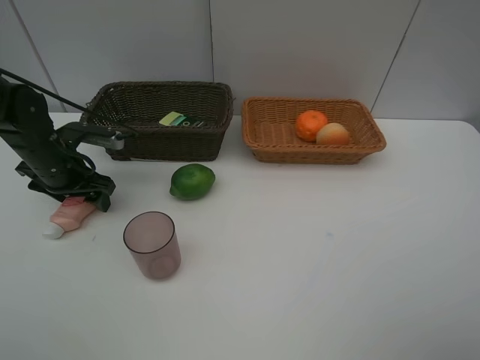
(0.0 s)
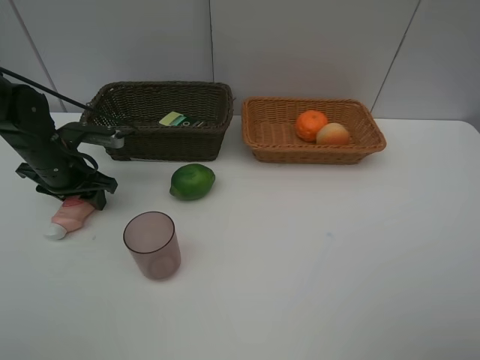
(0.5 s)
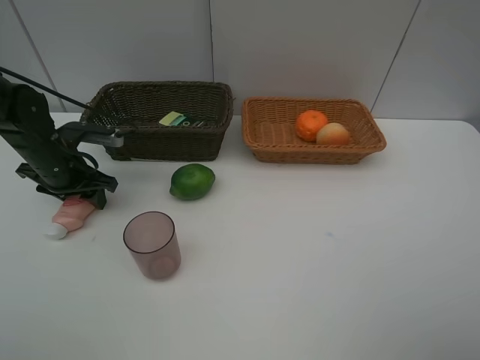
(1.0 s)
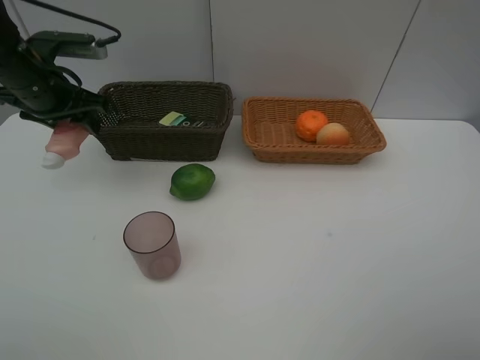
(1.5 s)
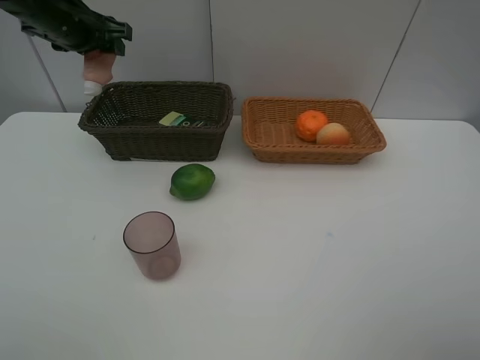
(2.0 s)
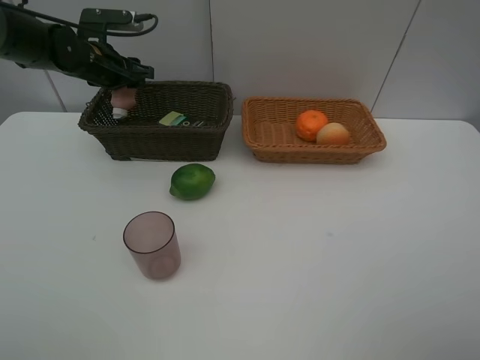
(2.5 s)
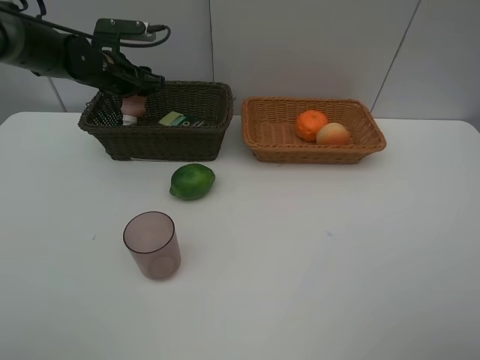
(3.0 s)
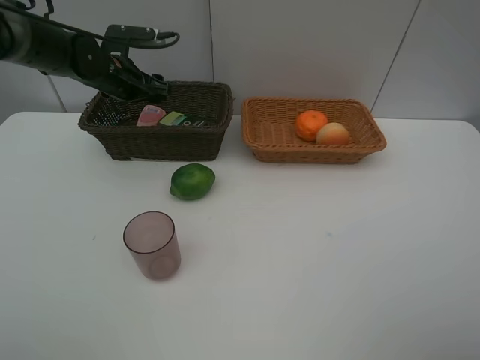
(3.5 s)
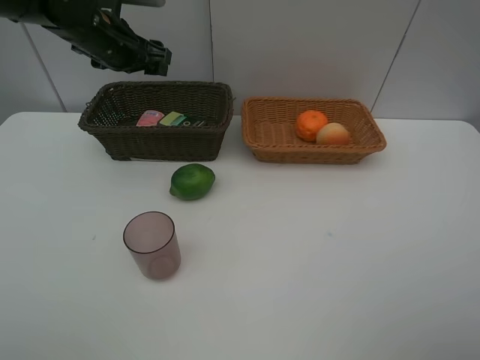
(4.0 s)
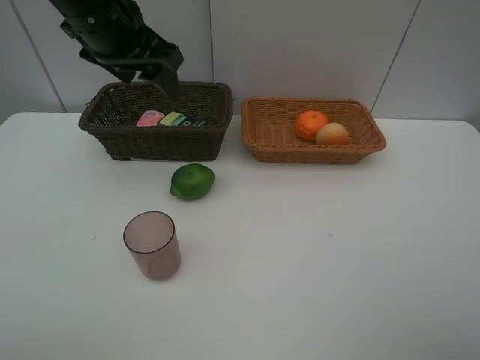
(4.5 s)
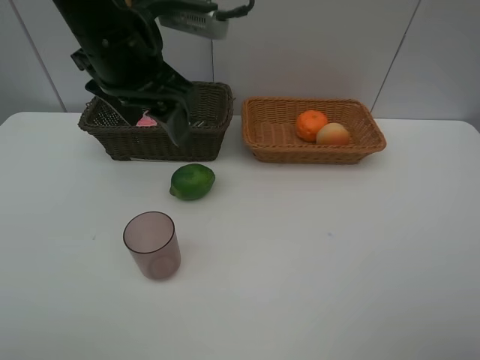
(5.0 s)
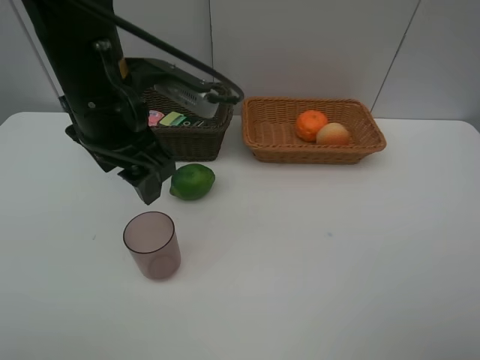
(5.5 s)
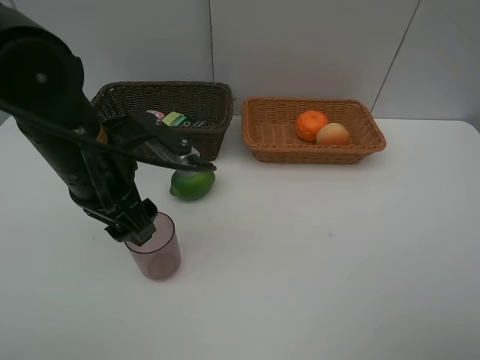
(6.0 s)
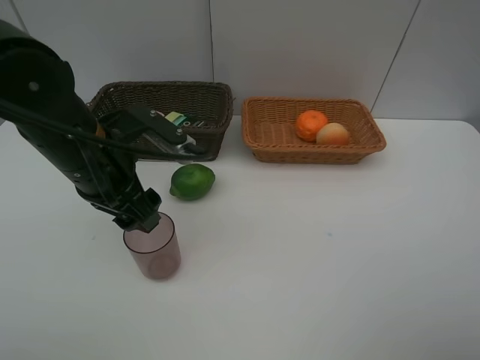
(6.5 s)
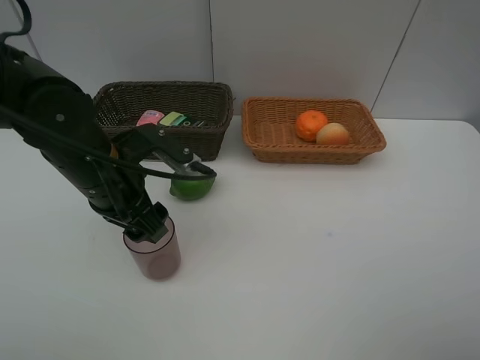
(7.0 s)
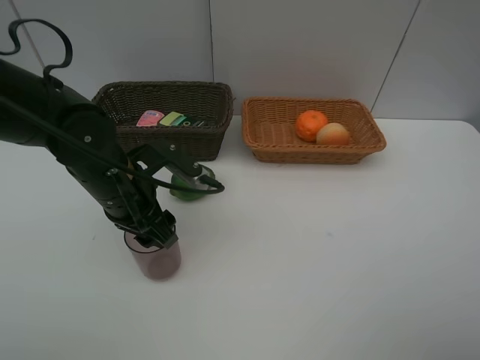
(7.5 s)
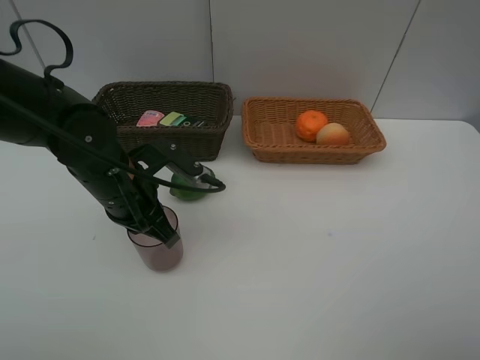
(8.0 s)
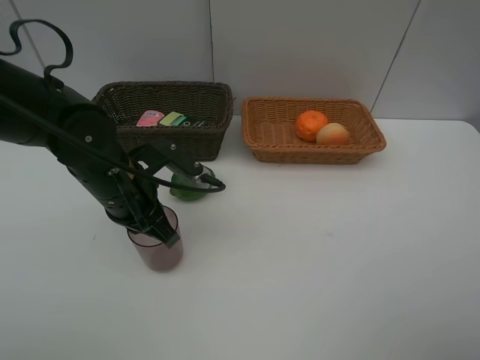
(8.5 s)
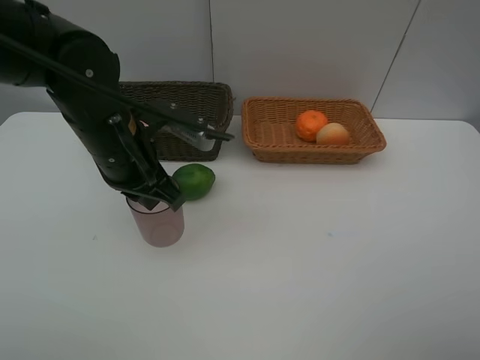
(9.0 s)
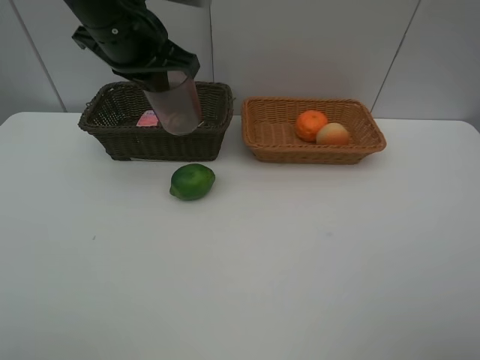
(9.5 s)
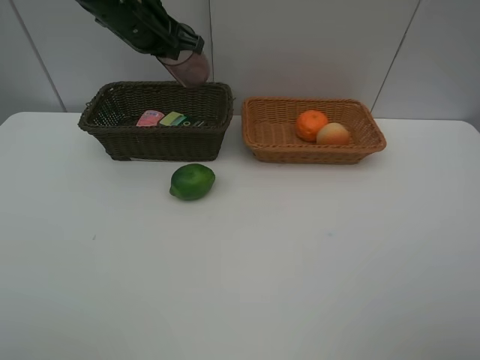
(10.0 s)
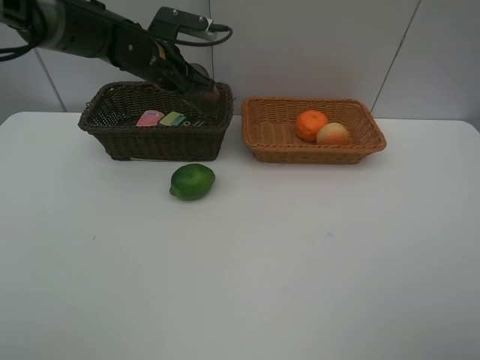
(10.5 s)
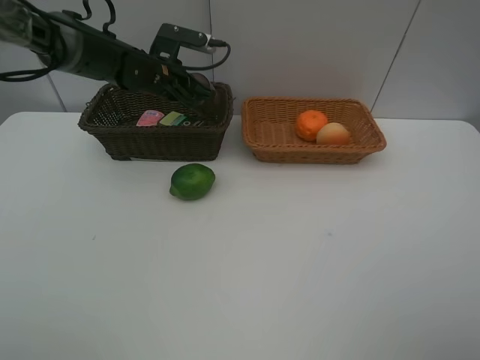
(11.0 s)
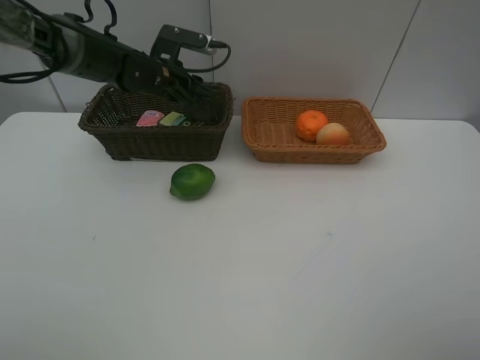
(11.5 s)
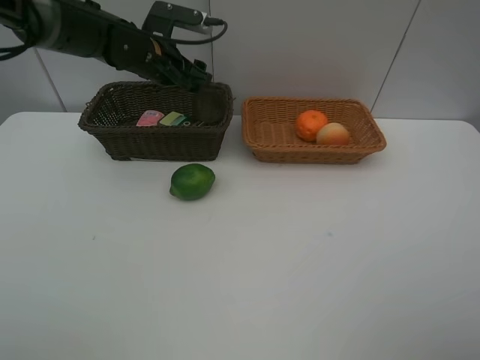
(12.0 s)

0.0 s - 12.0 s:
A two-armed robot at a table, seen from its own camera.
Task of the whole recording: place multiple objects separately in different baskets.
0.0 s - 2.0 s: The left gripper travels upward and forward by roughly 20 cm.
2.0 s - 4.0 s: The left gripper moves to the right, approximately 5 cm, and moves approximately 10 cm downward and comes back.
4.0 s - 6.0 s: The left gripper travels backward by roughly 20 cm.
6.0 s - 8.0 s: The left gripper heads downward, covering some 5 cm, and closes its fingers.
8.0 s - 10.0 s: The left gripper is displaced forward and upward by roughly 20 cm.
10.0 s - 12.0 s: The left gripper travels downward by roughly 5 cm, and opens up.

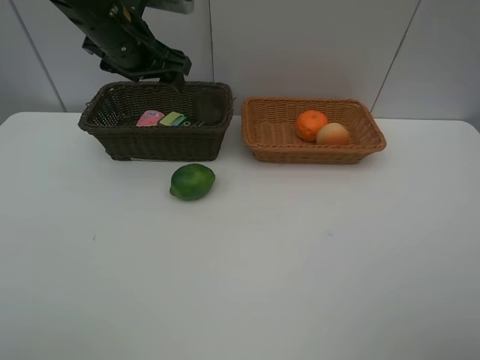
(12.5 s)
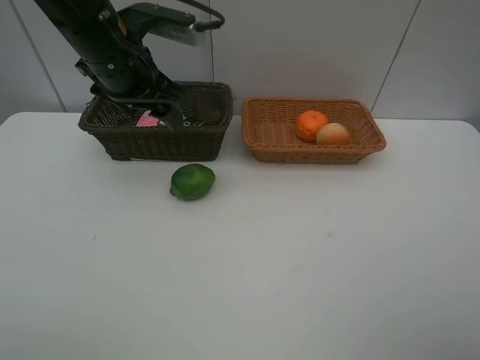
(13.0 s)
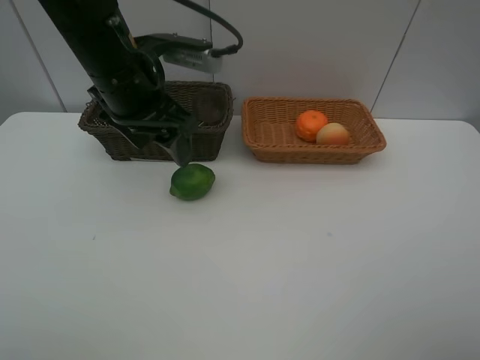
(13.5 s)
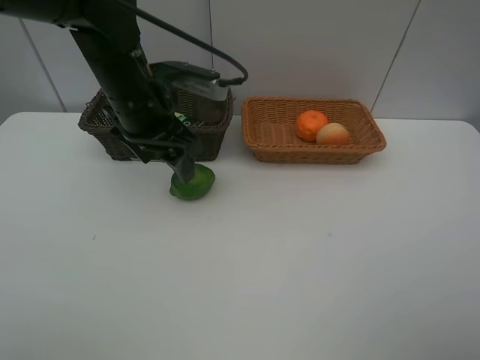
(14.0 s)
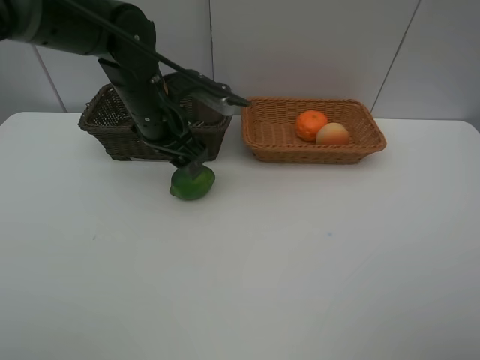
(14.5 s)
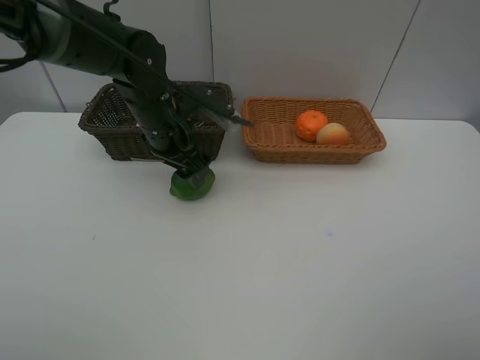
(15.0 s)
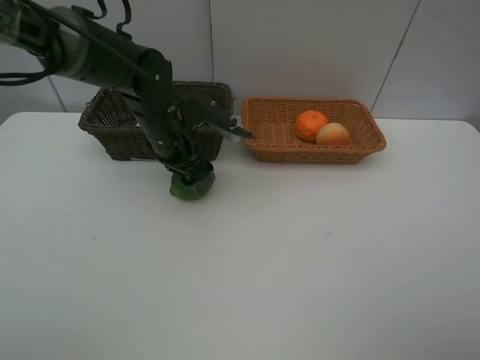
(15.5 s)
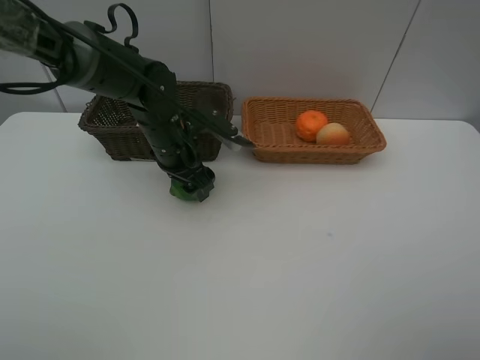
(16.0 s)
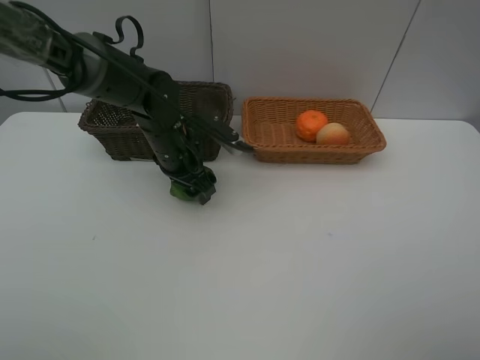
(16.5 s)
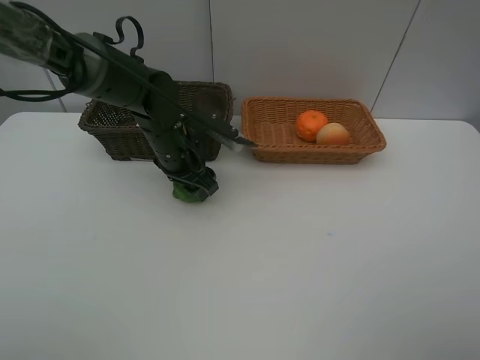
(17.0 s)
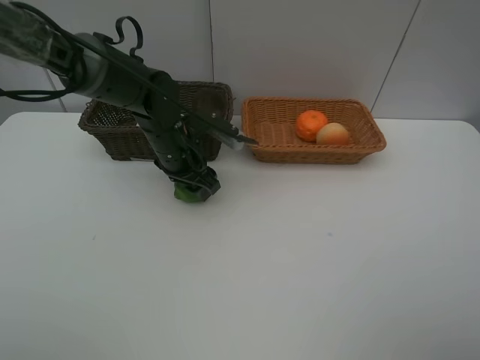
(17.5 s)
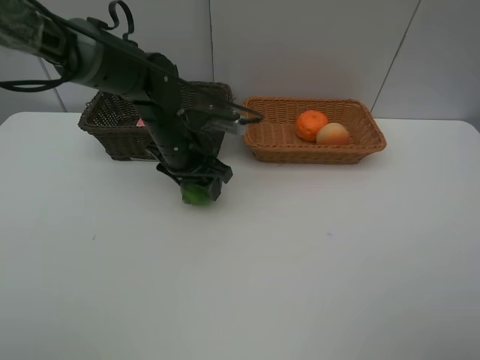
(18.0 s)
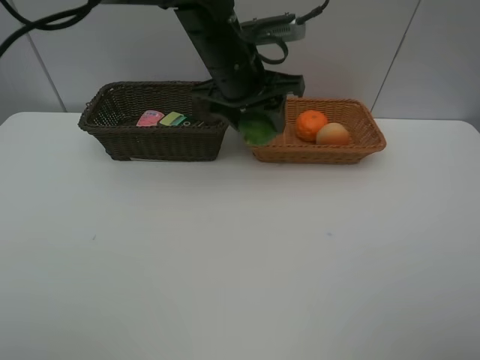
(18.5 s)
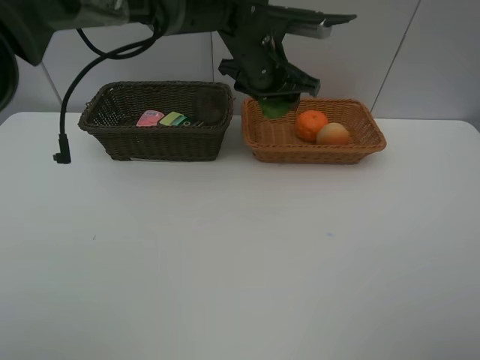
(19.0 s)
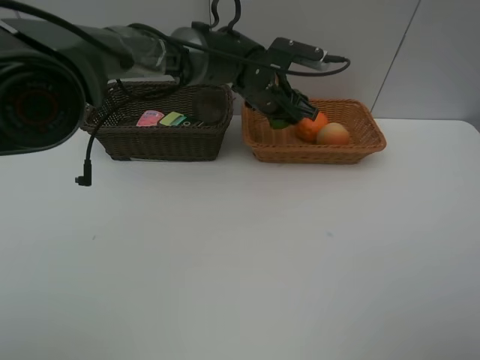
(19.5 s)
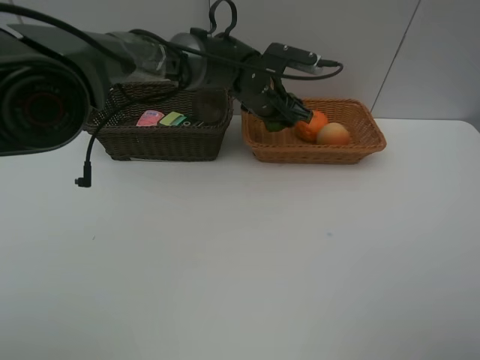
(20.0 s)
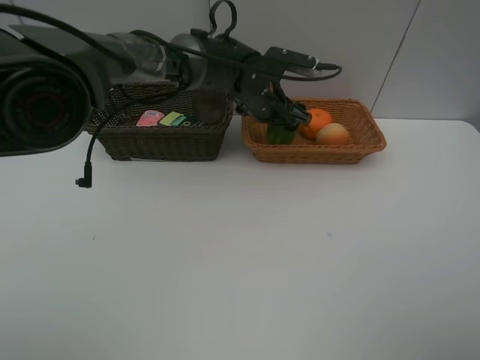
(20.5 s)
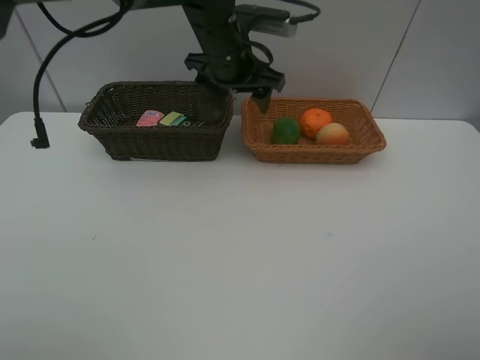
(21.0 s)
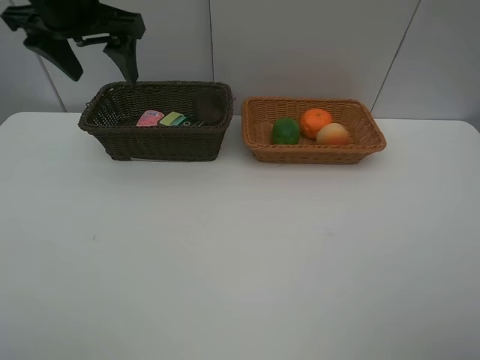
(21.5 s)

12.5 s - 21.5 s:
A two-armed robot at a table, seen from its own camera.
Task of the whole recording: place multiple objects separately in different baskets.
12.5 s - 14.5 s: The left gripper goes about 10 cm downward and backward.
14.5 s - 17.0 s: The left gripper goes roughly 5 cm downward.
17.0 s - 19.5 s: The left gripper heads to the right and forward, covering about 15 cm.
19.5 s - 21.5 s: The left gripper travels to the left and upward by roughly 30 cm.

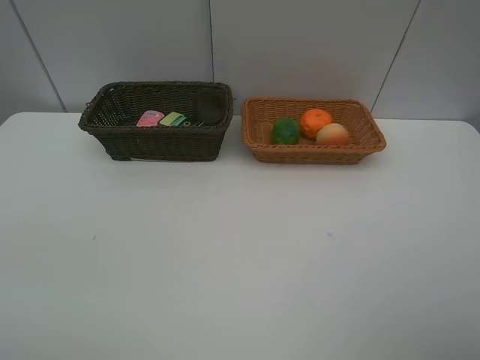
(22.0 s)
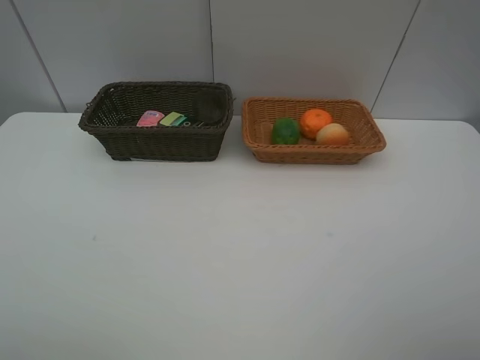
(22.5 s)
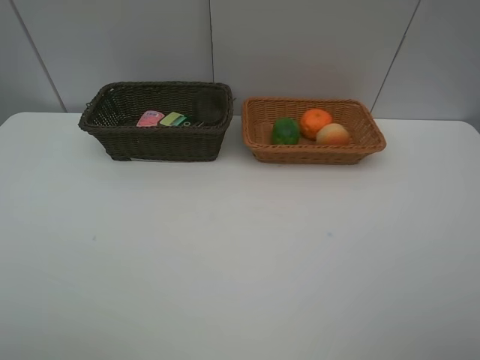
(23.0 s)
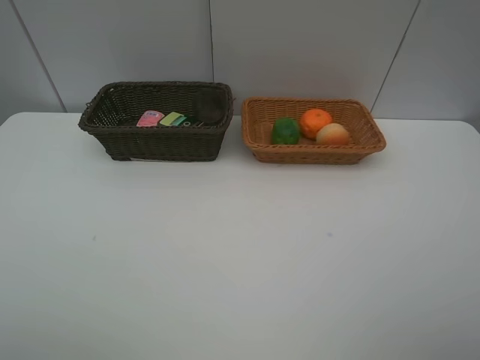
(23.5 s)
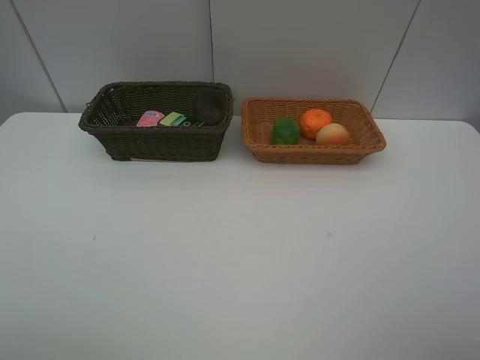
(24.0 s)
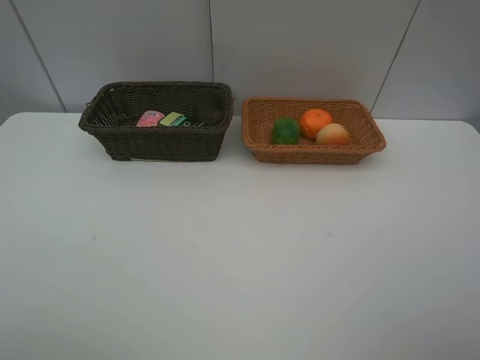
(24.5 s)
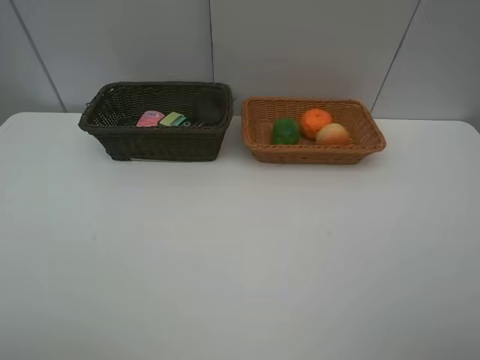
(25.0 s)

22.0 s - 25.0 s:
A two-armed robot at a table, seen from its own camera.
Task of the whole recording: place multiple objects separately in different baskets.
23.5 s - 25.0 s: Neither gripper changes place.

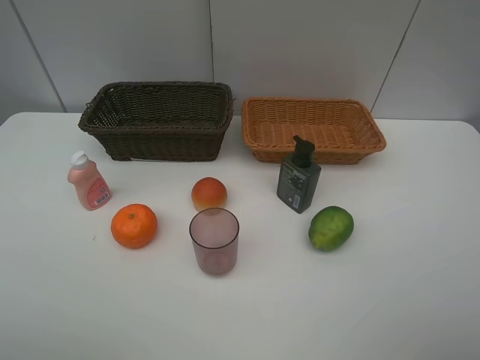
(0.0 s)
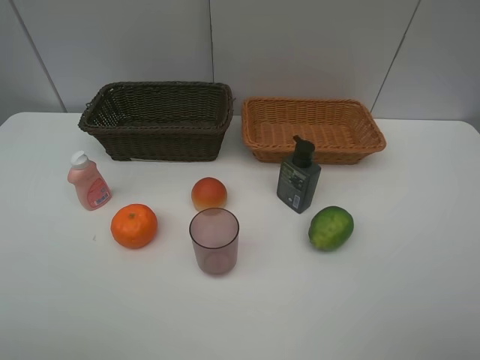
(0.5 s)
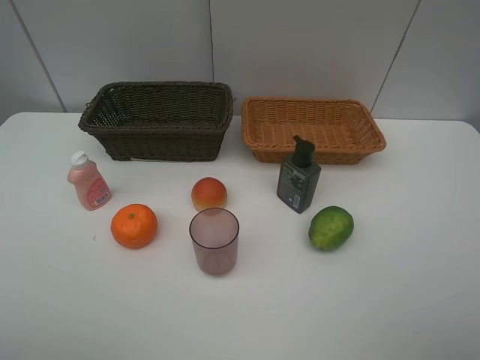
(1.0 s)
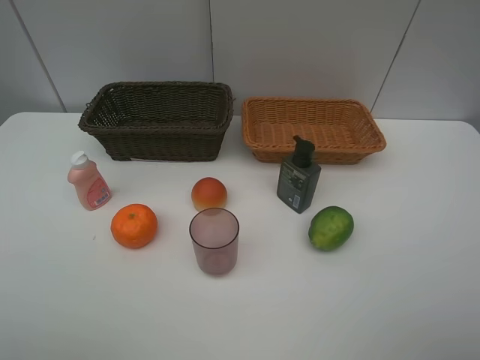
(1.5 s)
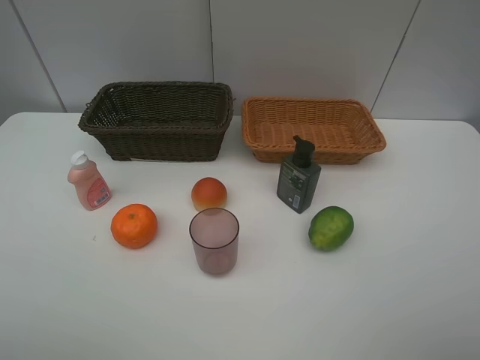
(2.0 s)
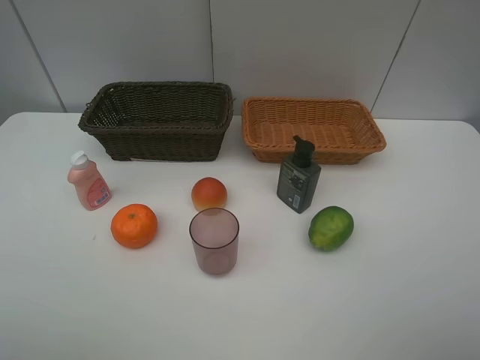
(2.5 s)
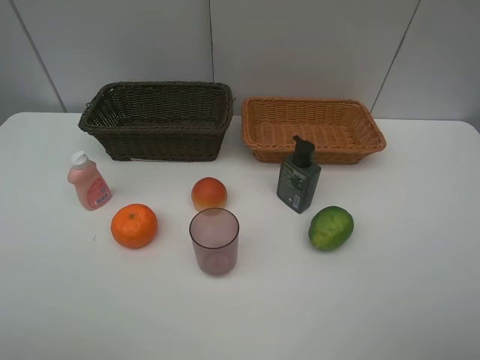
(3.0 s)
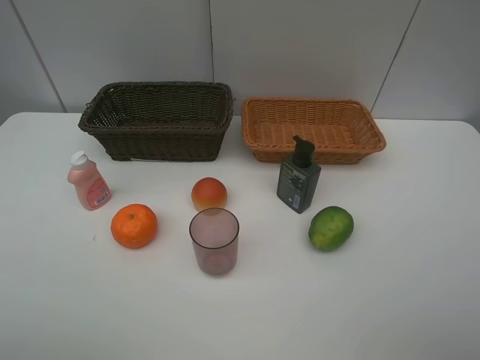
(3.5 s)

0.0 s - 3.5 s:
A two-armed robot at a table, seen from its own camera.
Task of the whole recording: place multiple objects separately in different baskets.
0.0 s - 2.0 s: Both grippers stay put.
